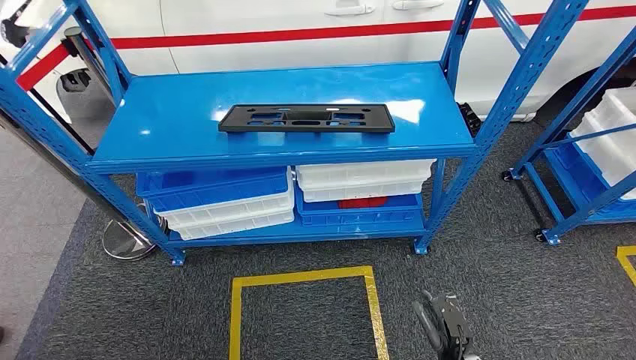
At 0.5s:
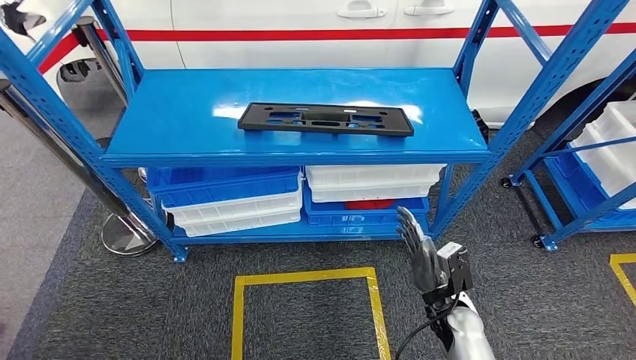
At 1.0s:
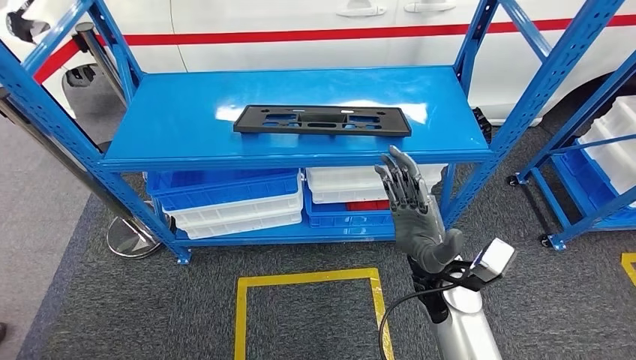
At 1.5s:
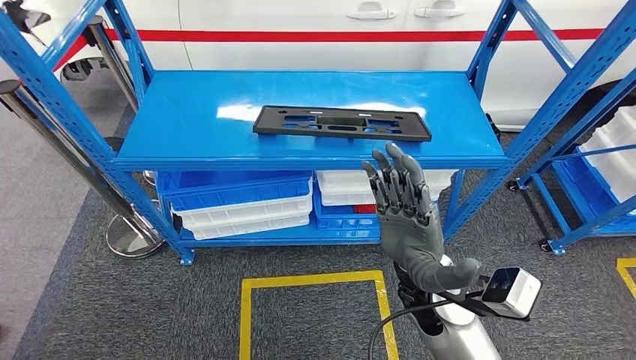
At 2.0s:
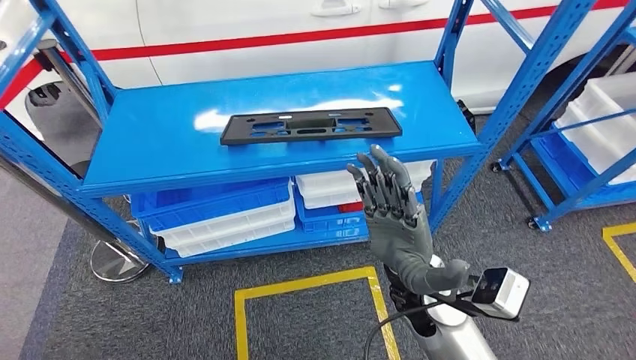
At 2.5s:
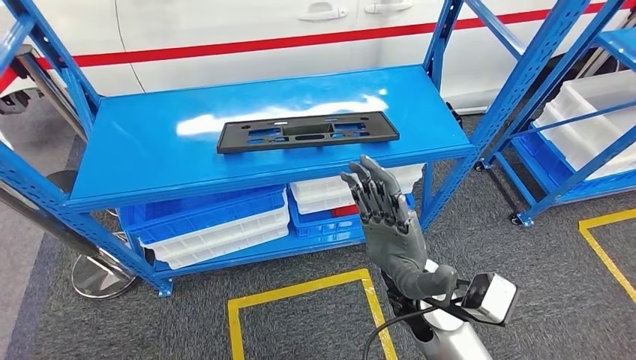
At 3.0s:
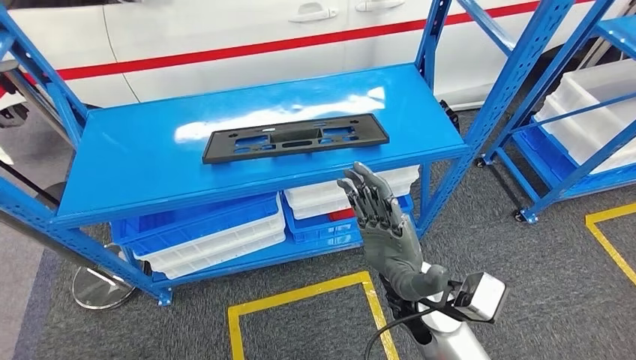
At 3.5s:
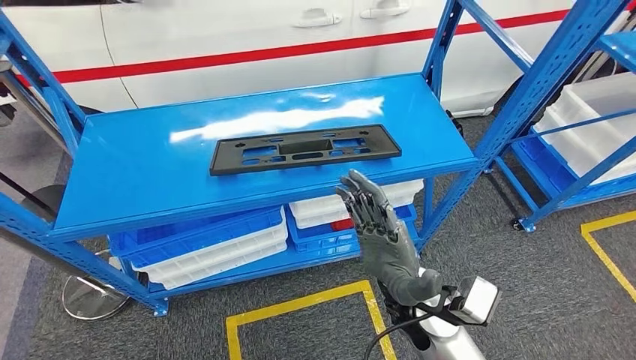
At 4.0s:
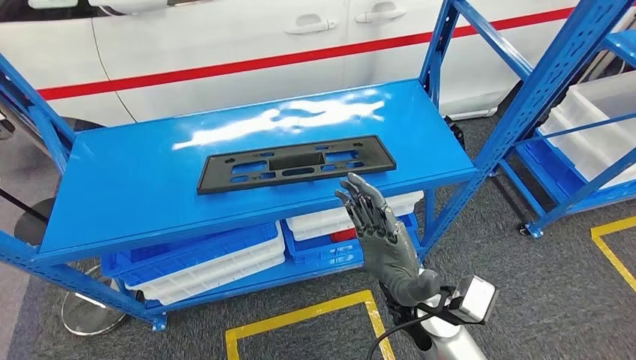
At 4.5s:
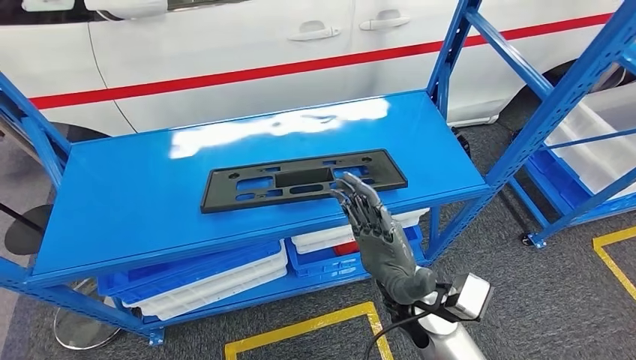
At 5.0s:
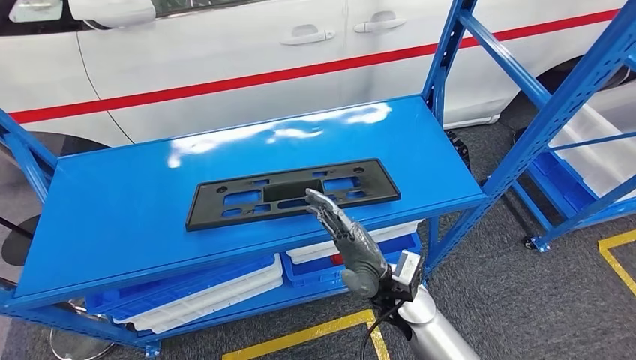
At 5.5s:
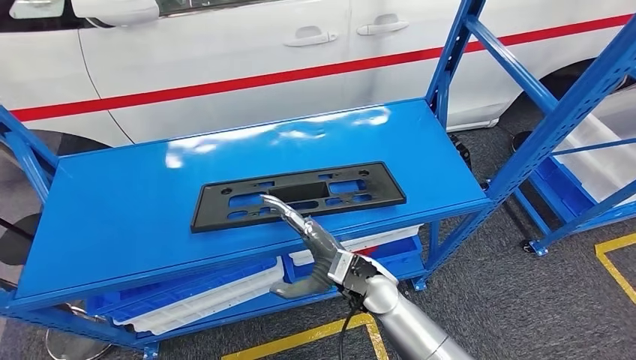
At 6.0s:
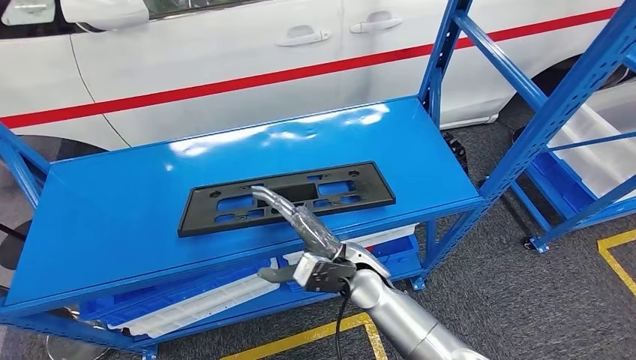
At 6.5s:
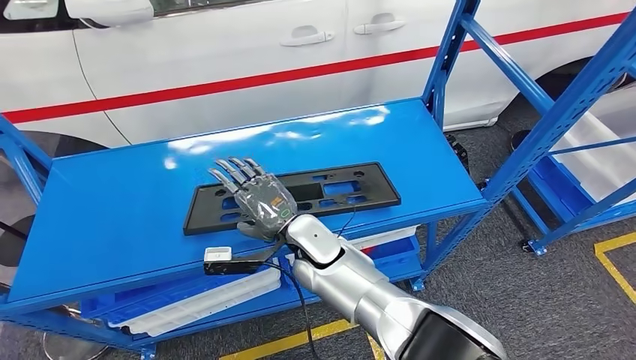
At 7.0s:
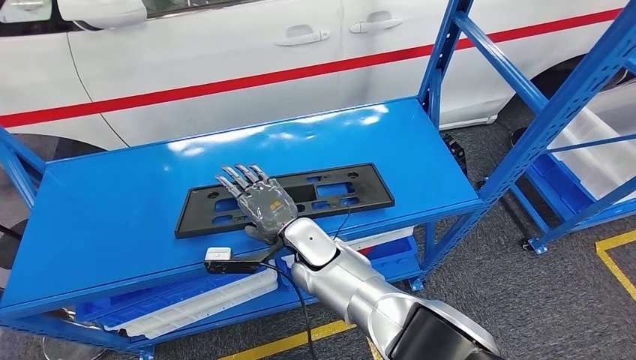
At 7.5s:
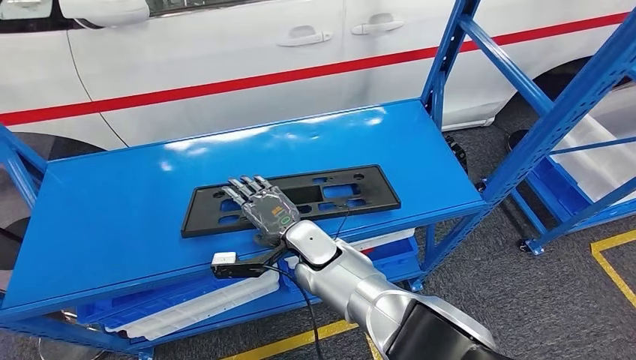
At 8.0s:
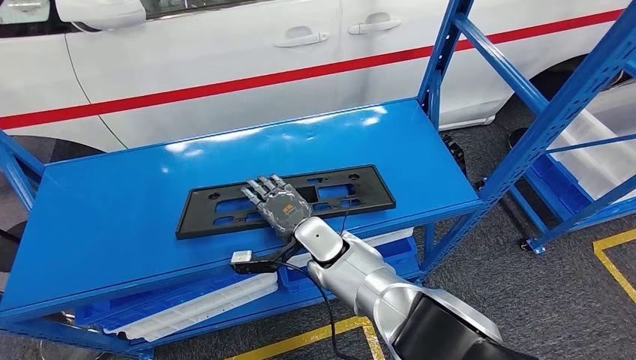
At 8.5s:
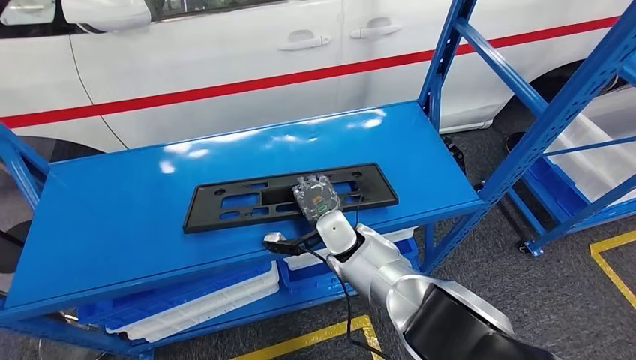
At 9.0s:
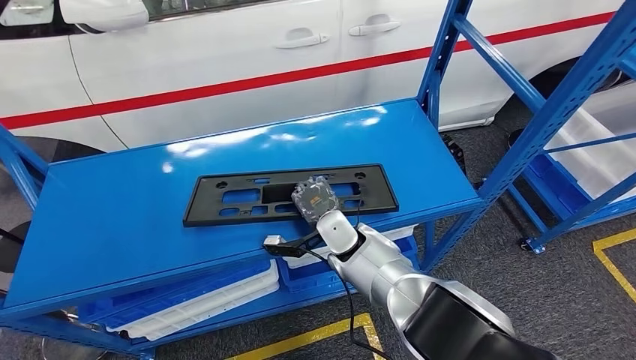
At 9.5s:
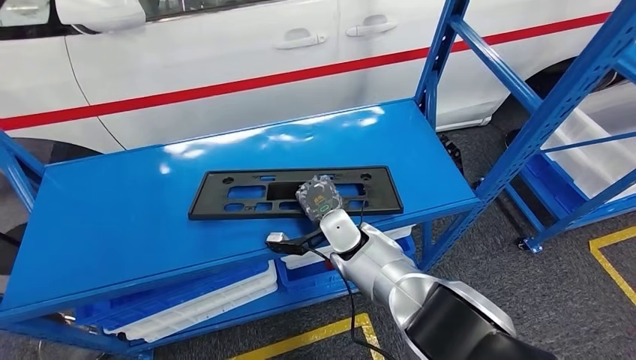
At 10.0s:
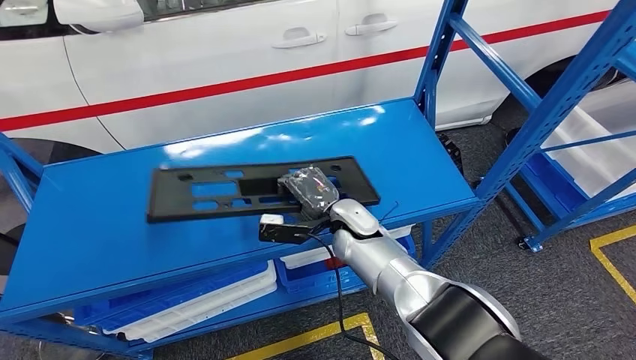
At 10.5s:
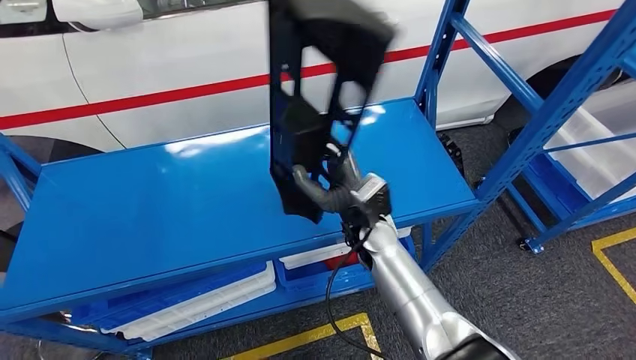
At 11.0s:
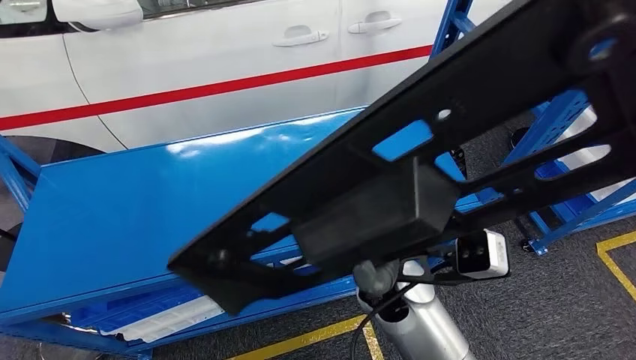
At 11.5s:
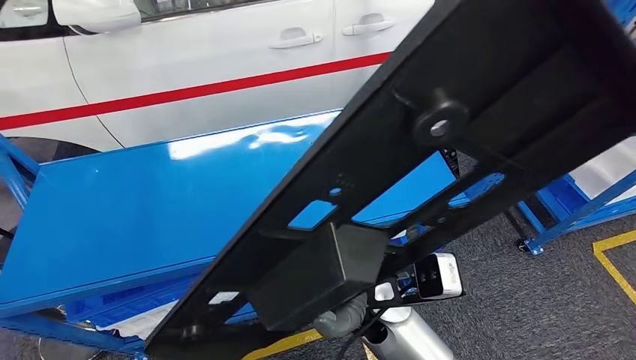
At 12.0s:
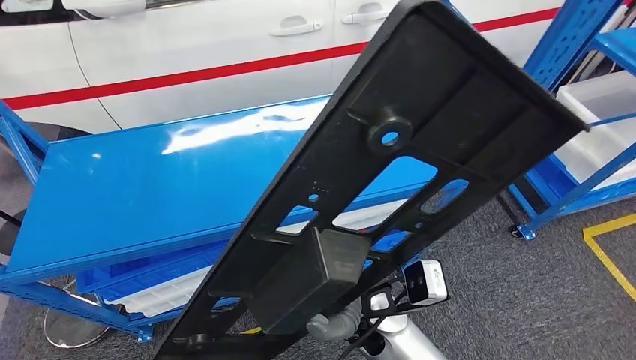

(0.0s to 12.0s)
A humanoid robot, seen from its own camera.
Step, 0.0s - 10.5s: Pick up the large material from the shelf.
6.0s - 8.0s: The right hand goes roughly 10 cm to the left and forward.

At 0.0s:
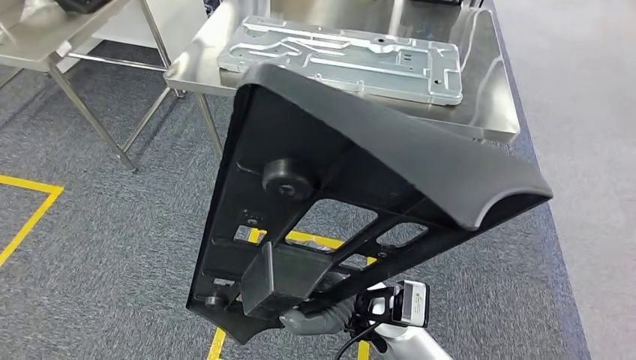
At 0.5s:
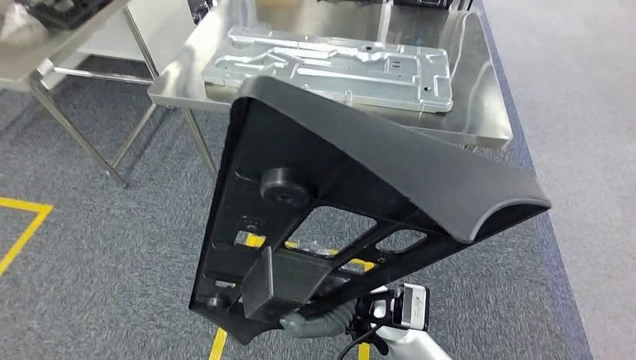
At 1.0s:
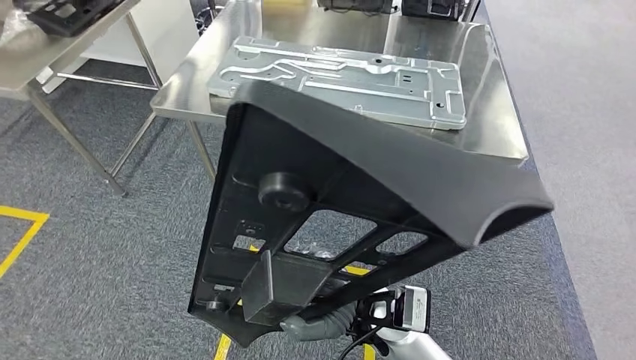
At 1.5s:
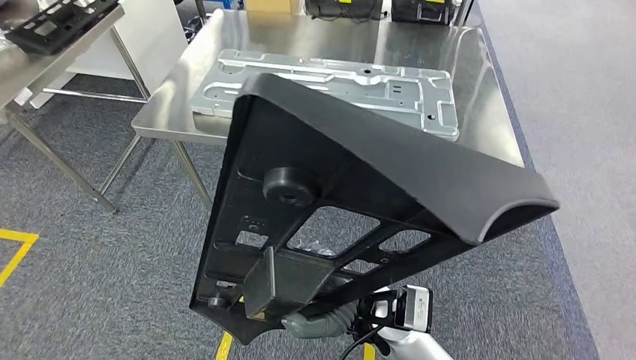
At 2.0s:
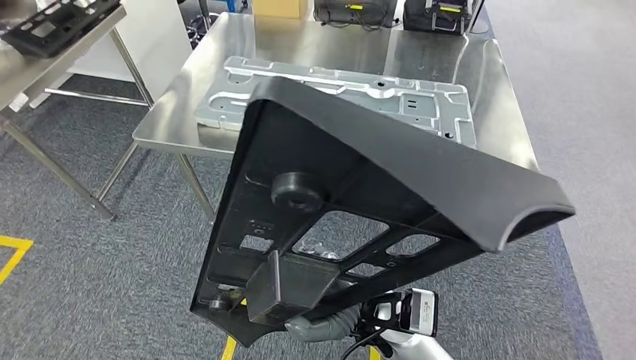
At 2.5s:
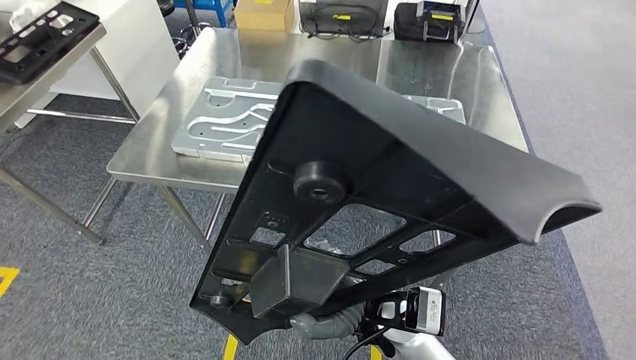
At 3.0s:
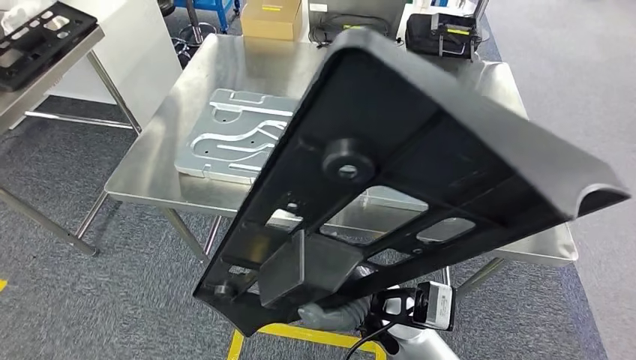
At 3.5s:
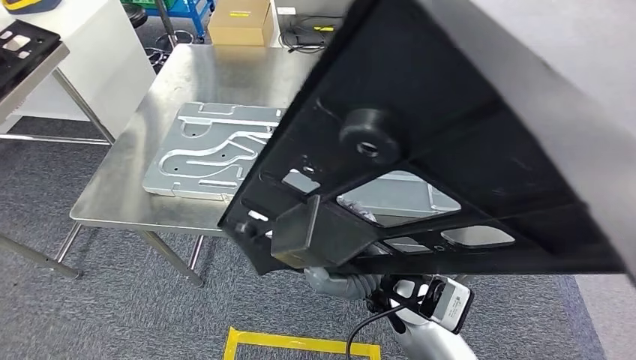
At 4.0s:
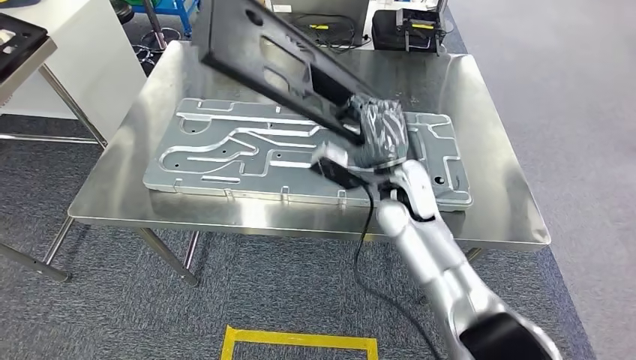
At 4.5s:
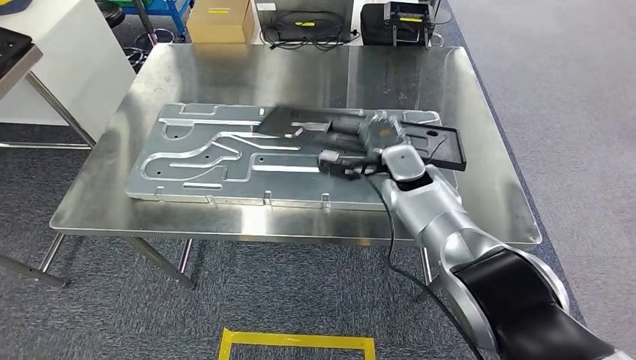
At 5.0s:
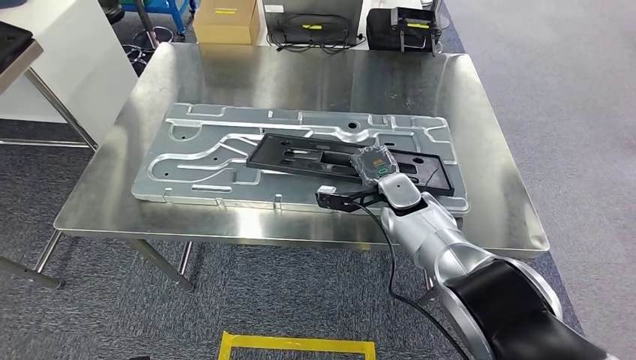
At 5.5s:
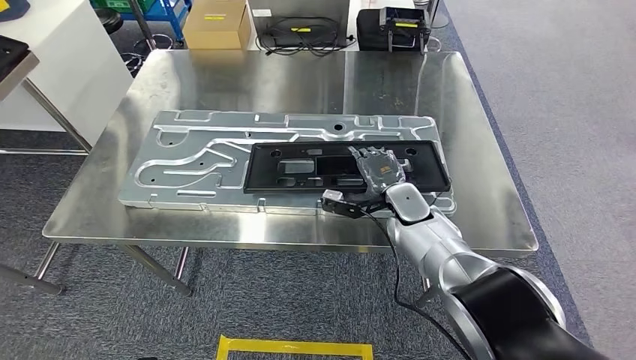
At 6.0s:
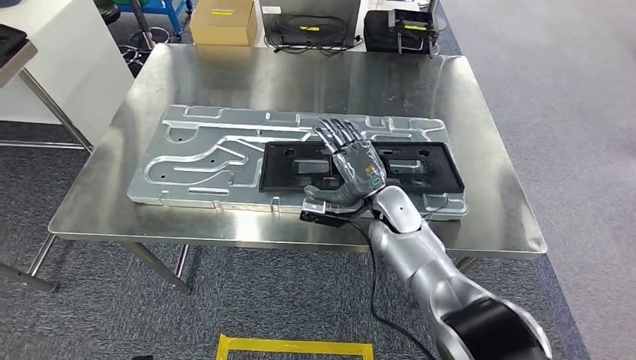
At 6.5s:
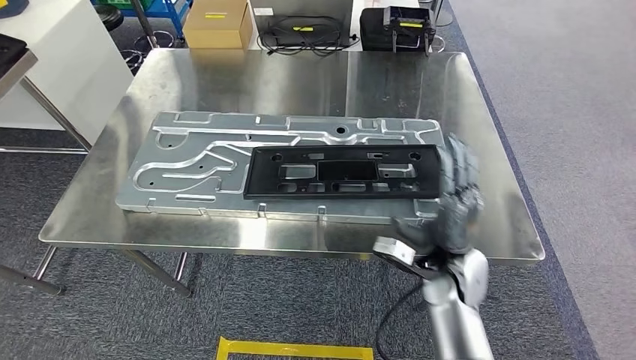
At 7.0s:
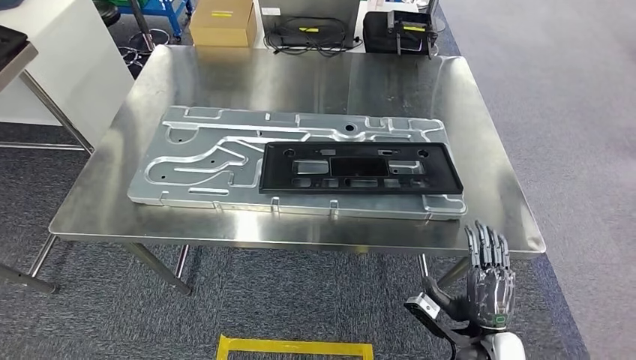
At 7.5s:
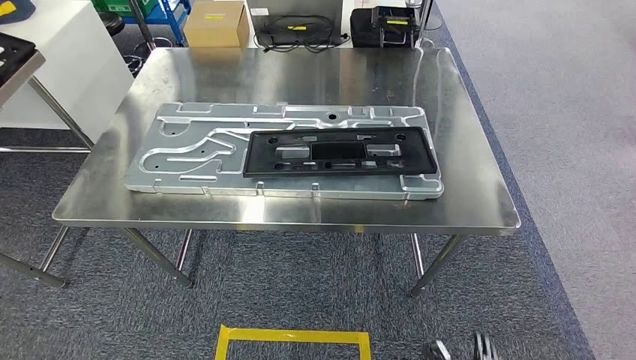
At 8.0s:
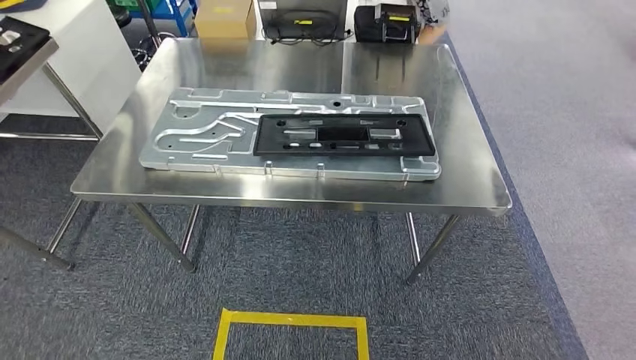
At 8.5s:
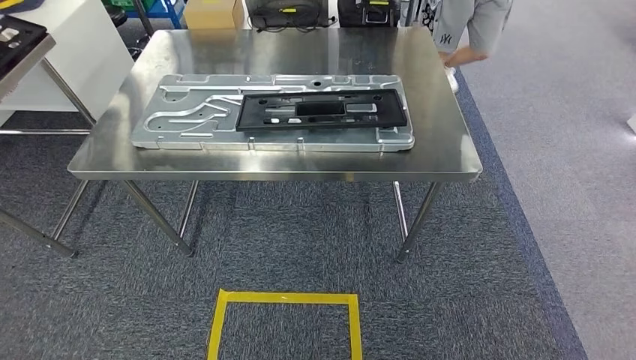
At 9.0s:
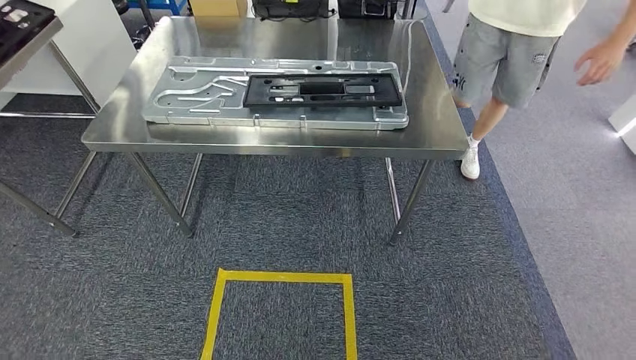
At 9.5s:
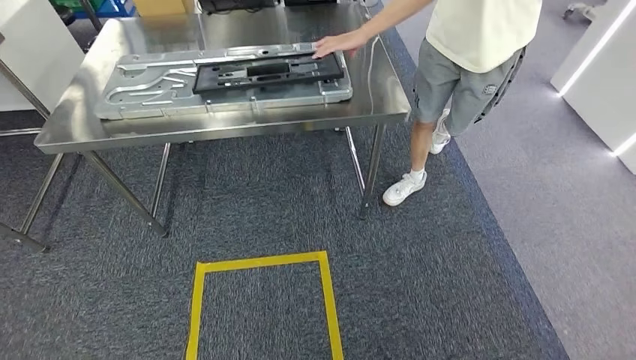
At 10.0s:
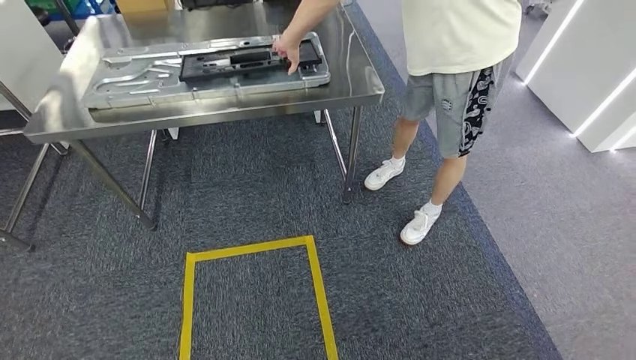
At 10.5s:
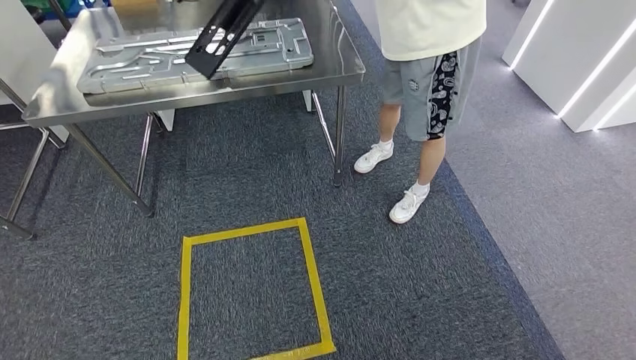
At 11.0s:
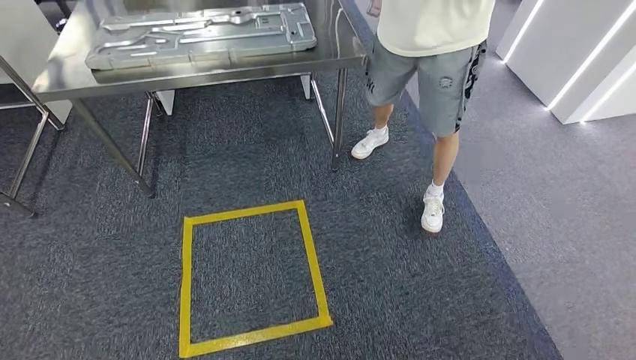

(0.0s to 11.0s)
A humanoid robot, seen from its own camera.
Step, 0.0s - 3.0s: Move the large material to the front of the workbench.
Step, 6.5s - 8.5s: Insert the large material into the corresponding hole on the workbench.
